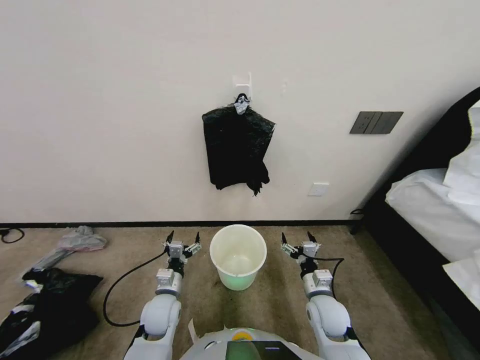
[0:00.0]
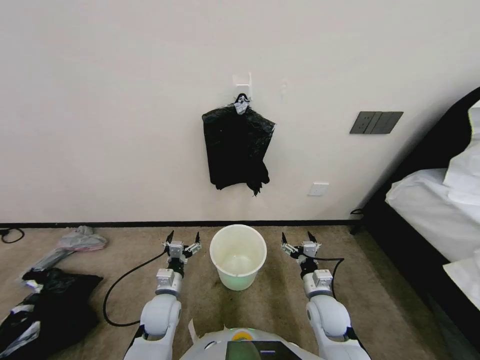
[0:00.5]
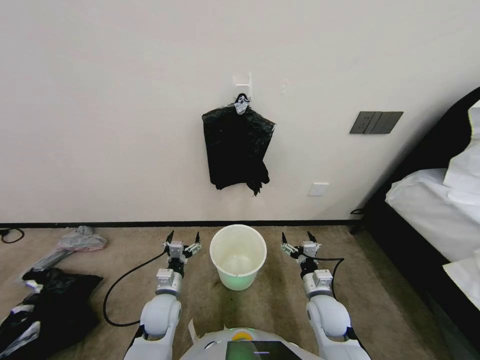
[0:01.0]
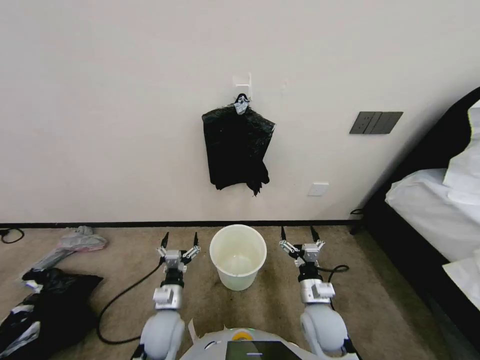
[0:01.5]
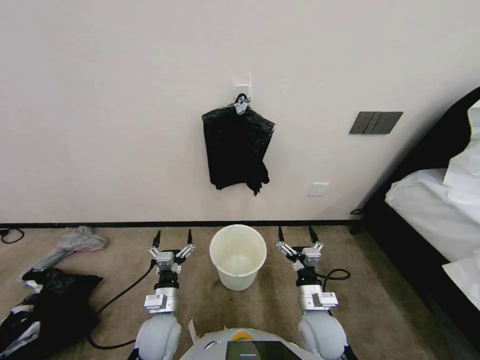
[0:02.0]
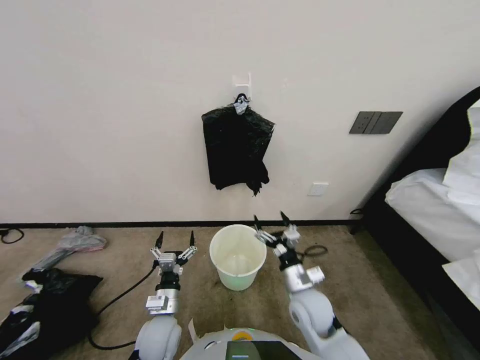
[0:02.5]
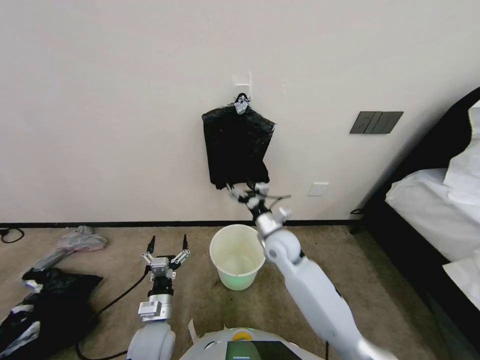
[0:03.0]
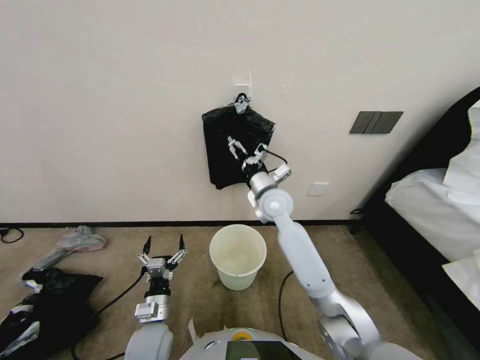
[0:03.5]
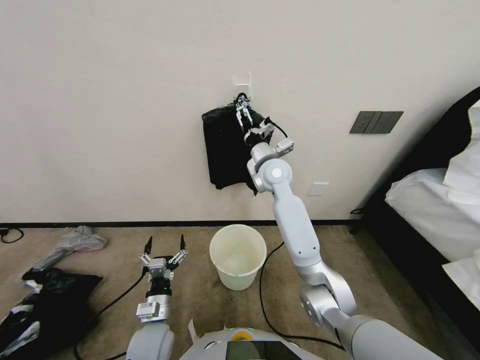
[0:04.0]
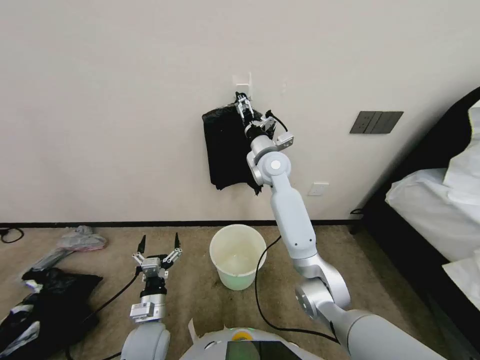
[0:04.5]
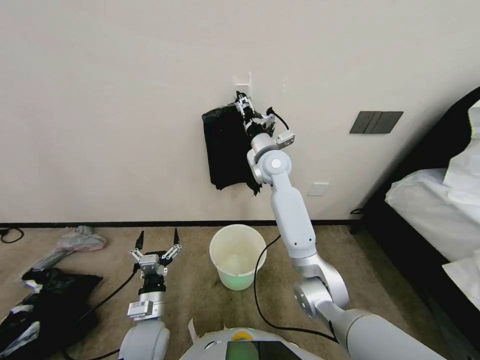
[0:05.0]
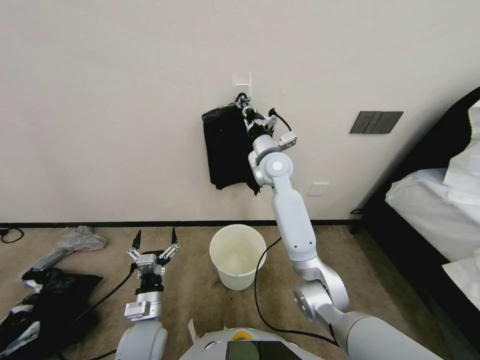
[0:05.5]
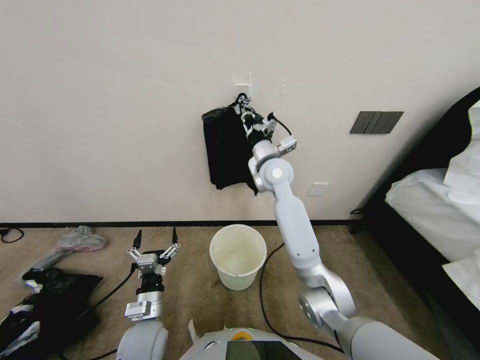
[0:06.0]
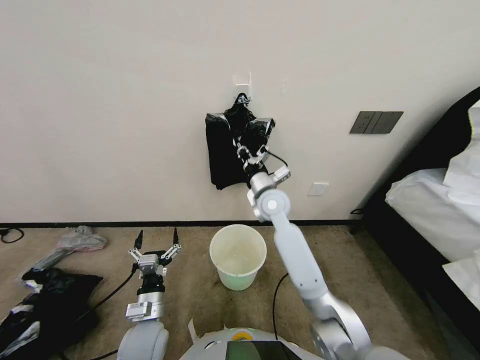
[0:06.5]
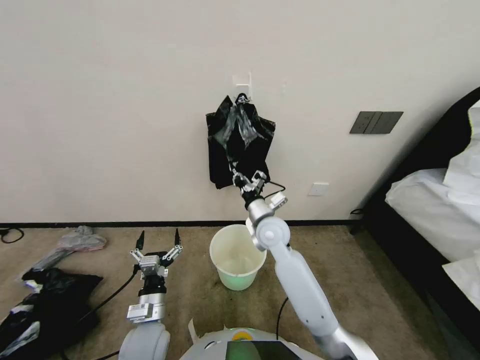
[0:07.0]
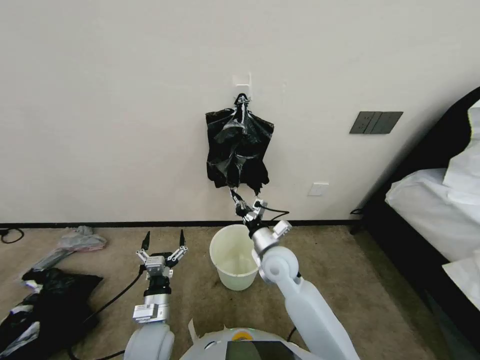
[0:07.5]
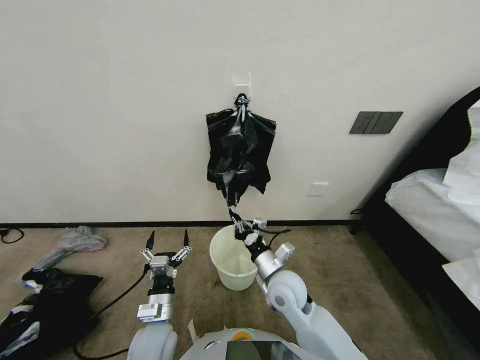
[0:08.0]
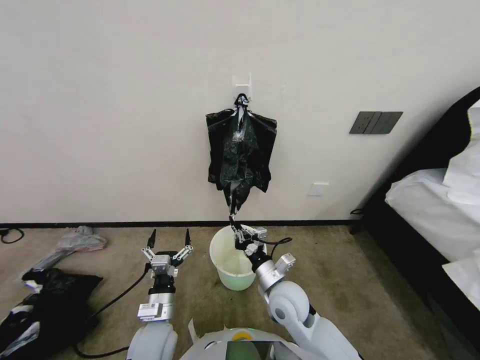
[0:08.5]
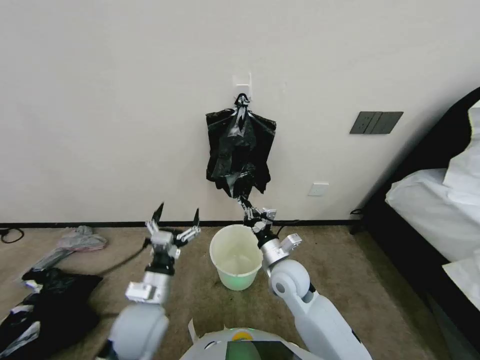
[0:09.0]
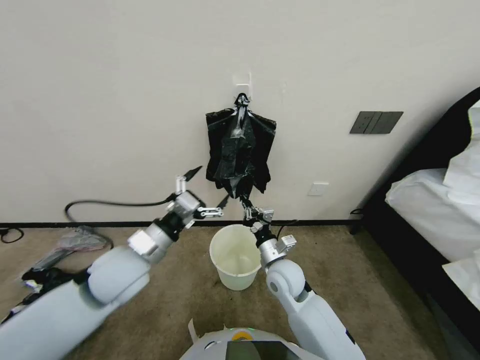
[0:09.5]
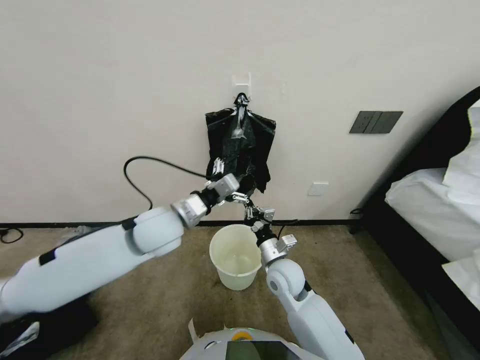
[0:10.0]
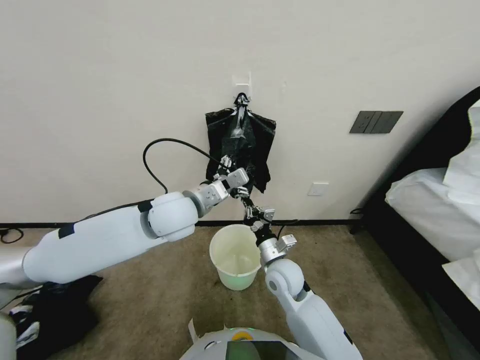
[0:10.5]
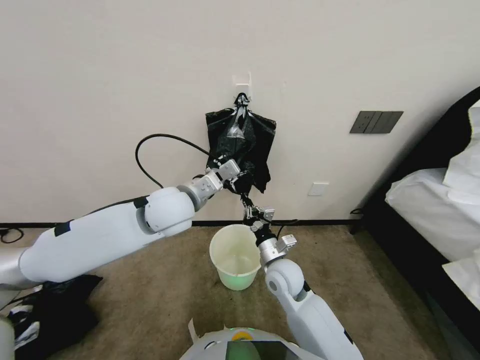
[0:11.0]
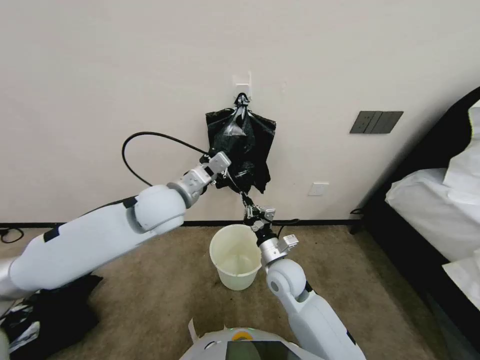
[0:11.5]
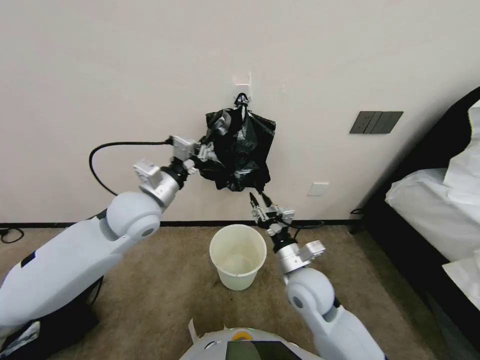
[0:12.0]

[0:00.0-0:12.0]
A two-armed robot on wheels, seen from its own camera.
Task of the whole recording: Place a trash bag onto the trash bin.
0:02.0 to 0:04.0: The right gripper heads forward and upward, covering some 40 cm.
0:04.0 to 0:06.0: The right gripper closes.
0:06.0 to 0:08.0: The right gripper shifts some 30 cm backward and downward.
0:08.0 to 0:10.0: The left gripper moves upward and forward, about 30 cm.
0:10.0 to 0:12.0: The right gripper shifts by approximately 5 cm. The left gripper moves approximately 5 cm, and closes.

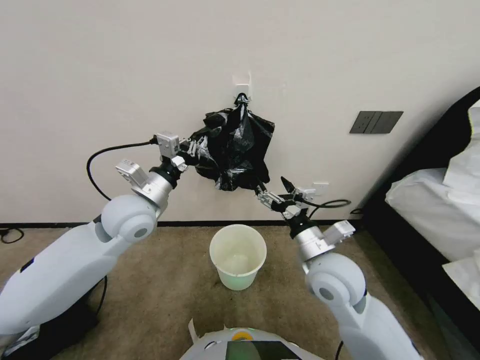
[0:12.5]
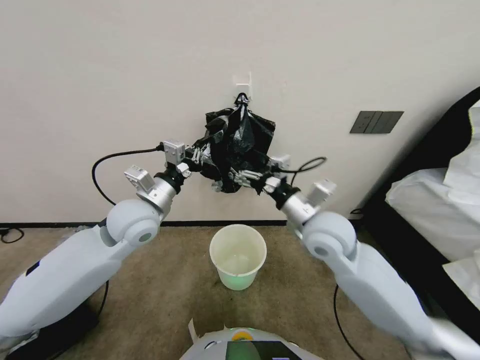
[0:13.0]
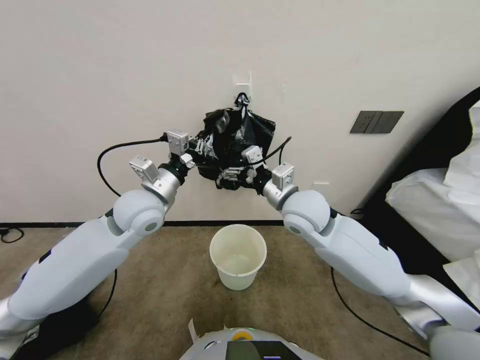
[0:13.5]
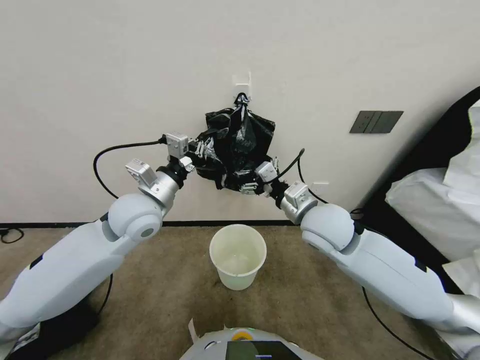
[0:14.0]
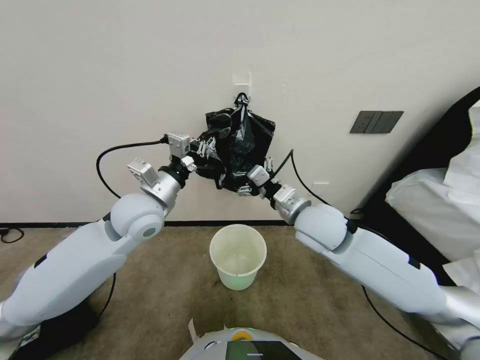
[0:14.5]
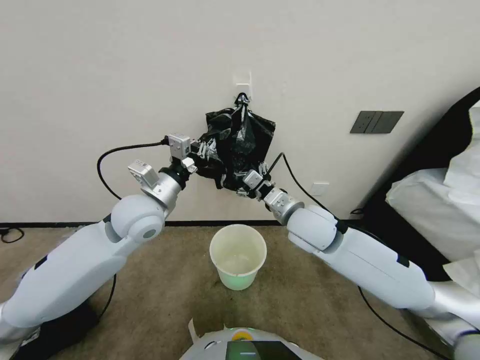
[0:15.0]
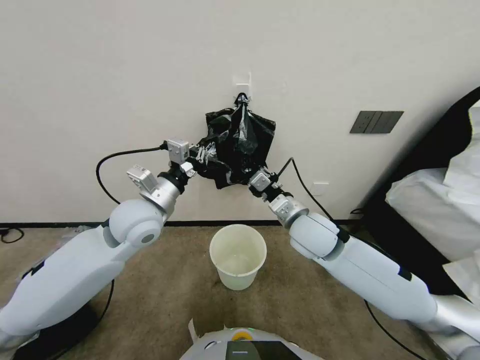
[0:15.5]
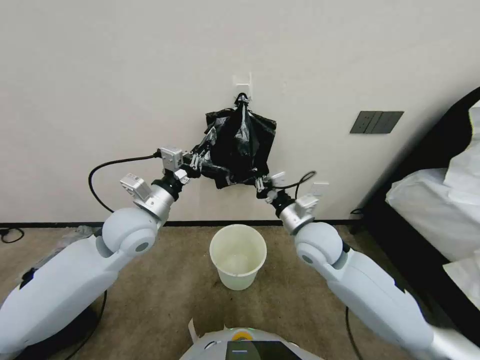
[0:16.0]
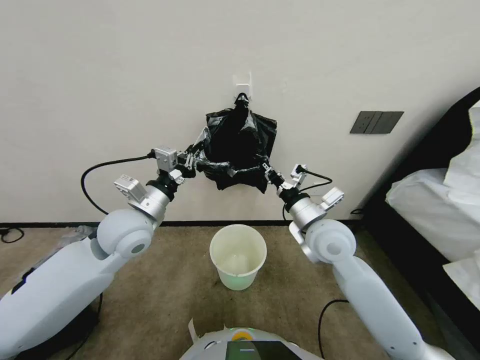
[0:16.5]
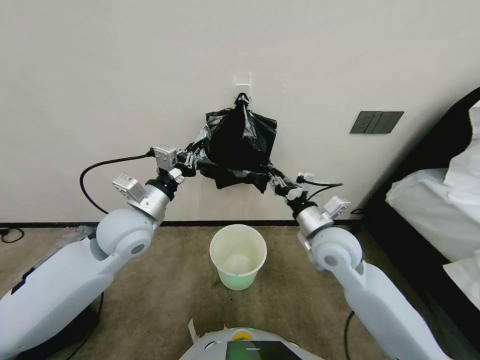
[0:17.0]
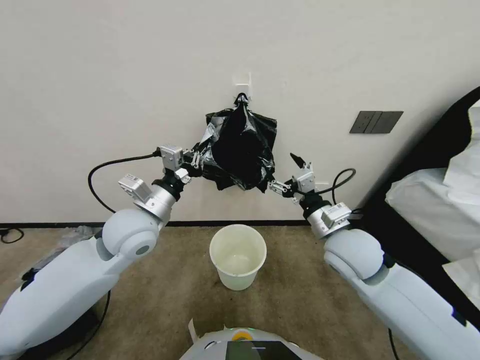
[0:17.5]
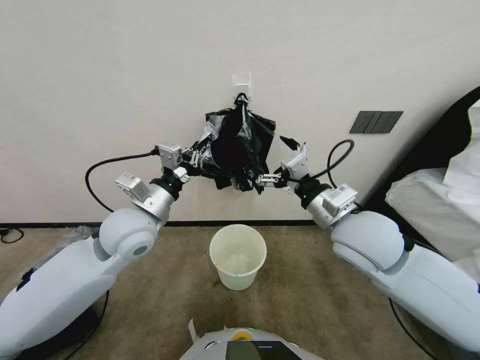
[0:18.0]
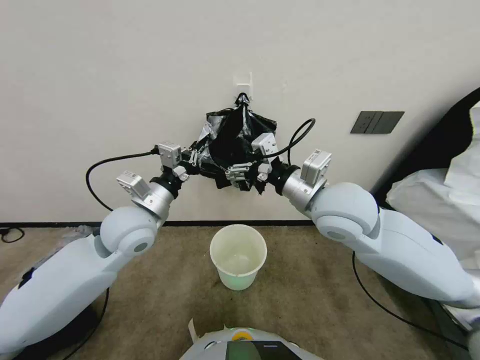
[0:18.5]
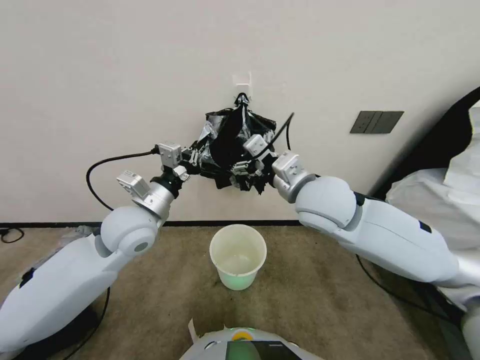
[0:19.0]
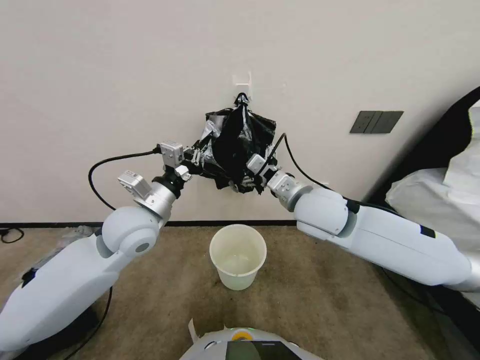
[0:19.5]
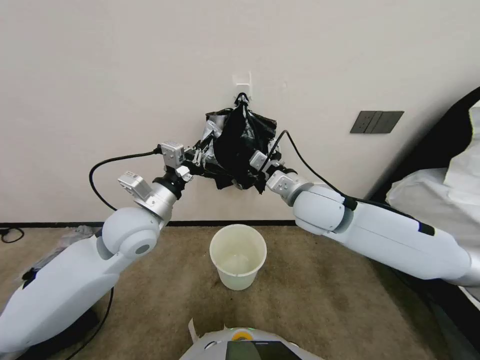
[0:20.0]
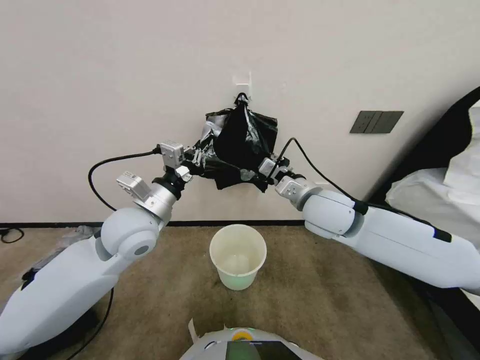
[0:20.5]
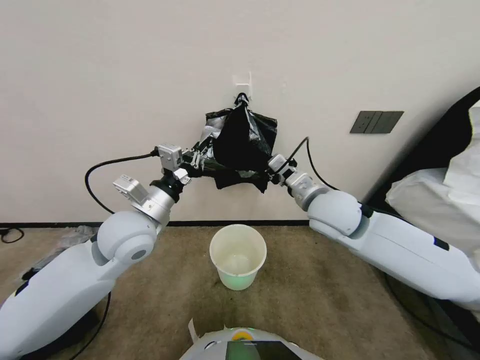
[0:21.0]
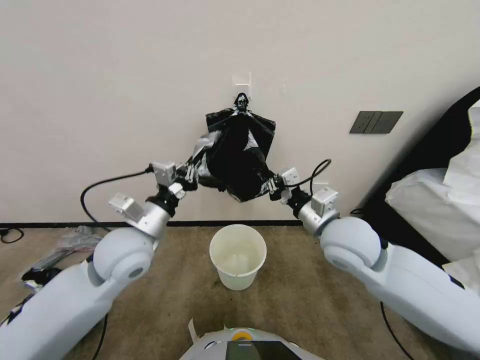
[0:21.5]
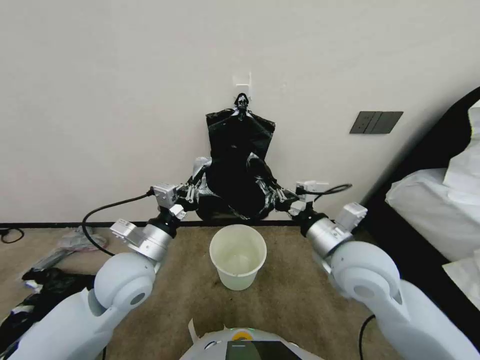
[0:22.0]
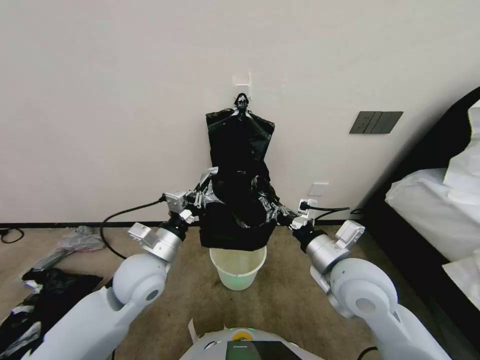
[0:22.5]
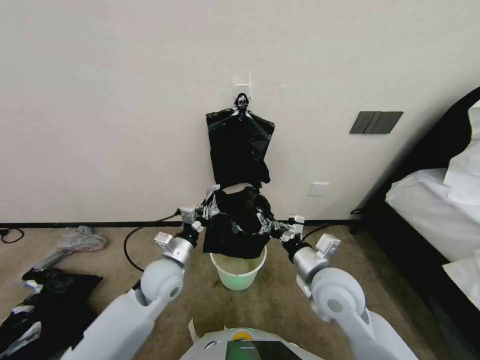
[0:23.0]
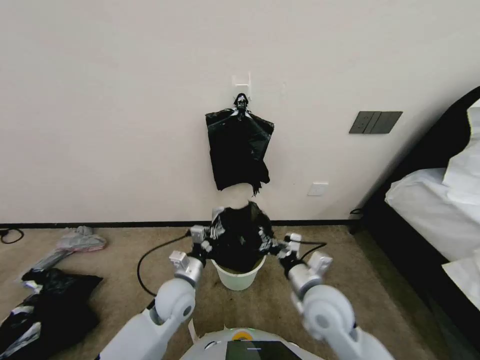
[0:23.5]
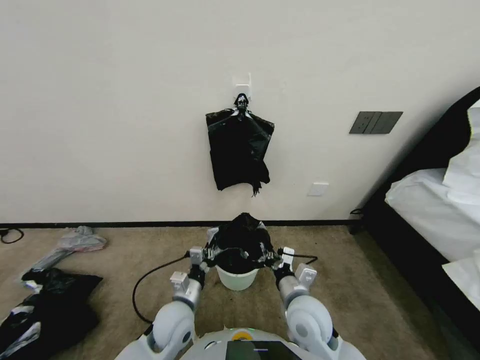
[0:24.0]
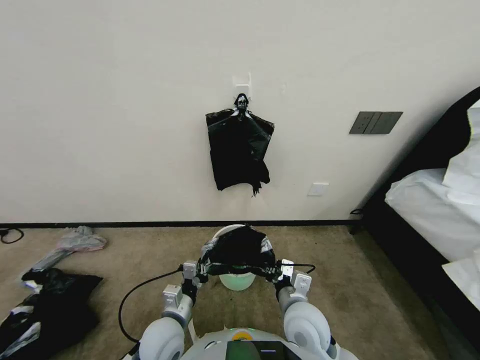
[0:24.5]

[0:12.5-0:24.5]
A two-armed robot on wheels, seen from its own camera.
Task of the whole recording: Place a trash bag onto the trash bin.
0:12.5 to 0:14.5: The right gripper goes about 10 cm forward and upward.
0:14.5 to 0:16.5: The right gripper closes its fingers.
0:16.5 to 0:18.5: The right gripper travels upward by some 10 cm, and opens up.
0:18.5 to 0:20.5: The right gripper changes place by about 5 cm, and closes up.
0:20.5 to 0:22.5: The left gripper shifts approximately 10 cm downward and backward. The right gripper heads backward and downward, covering roughly 15 cm, and closes its fingers.
0:22.5 to 0:24.5: The left gripper is displaced downward and backward by roughly 20 cm. Meanwhile the right gripper goes approximately 15 cm downward and to the left.

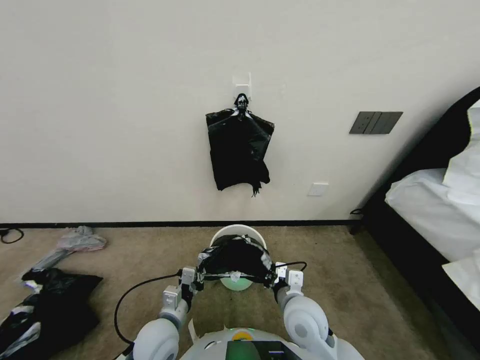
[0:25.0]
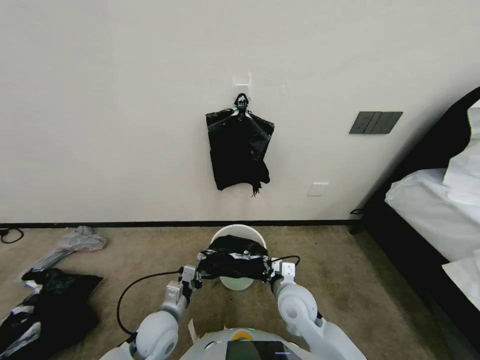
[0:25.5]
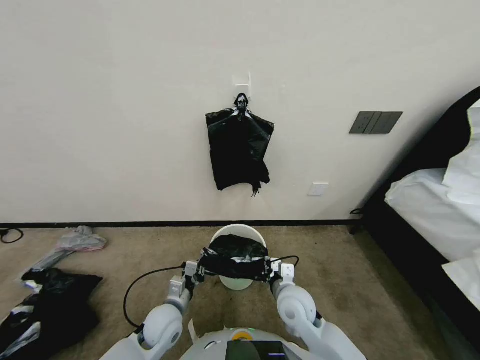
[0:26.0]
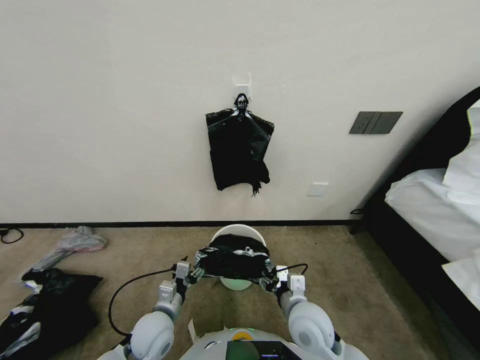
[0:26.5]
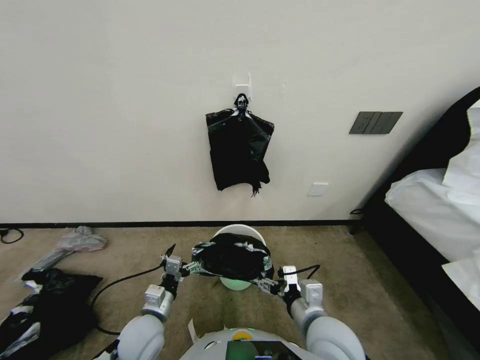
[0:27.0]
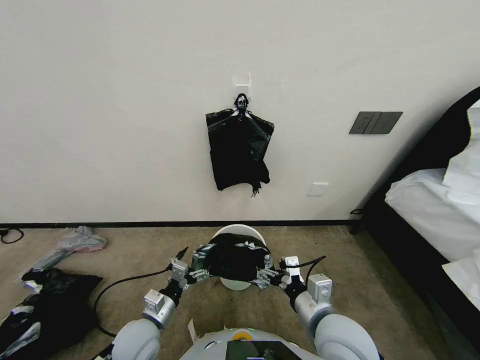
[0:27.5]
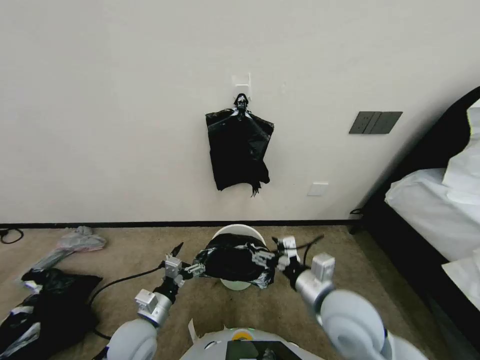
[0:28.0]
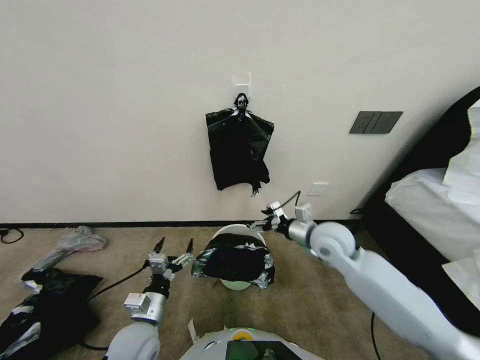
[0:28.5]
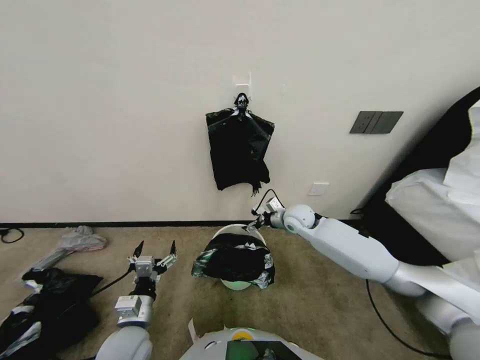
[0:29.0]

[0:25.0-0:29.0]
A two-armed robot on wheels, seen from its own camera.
Task of the whole recording: Place a trash bag onto the trash bin.
0:25.0 to 0:27.0: The right gripper changes place by roughly 5 cm, and opens up. Meanwhile the left gripper opens.
0:27.0 to 0:29.0: The right gripper heads forward, covering some 30 cm.
